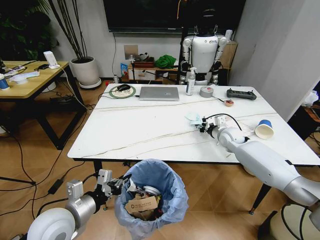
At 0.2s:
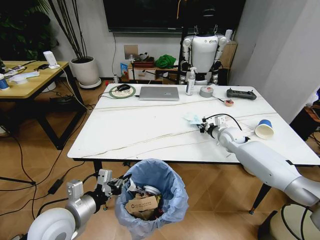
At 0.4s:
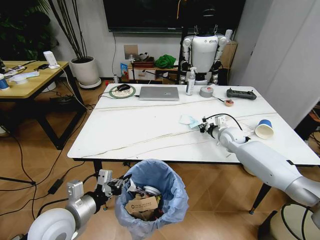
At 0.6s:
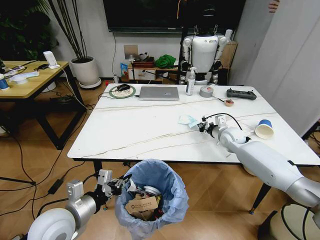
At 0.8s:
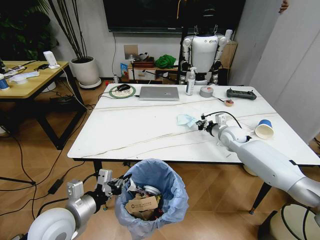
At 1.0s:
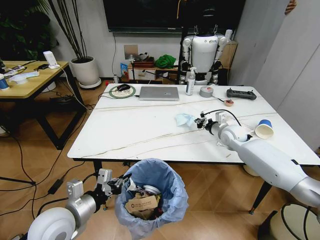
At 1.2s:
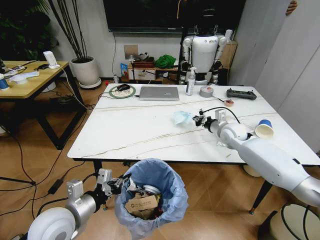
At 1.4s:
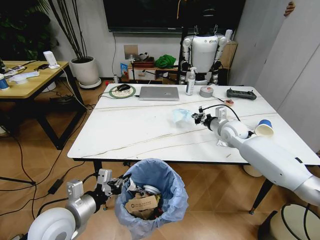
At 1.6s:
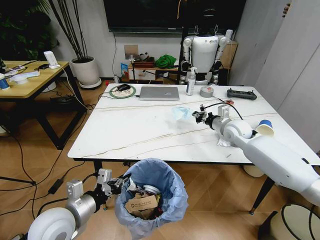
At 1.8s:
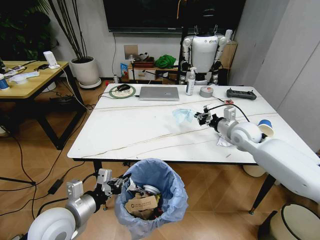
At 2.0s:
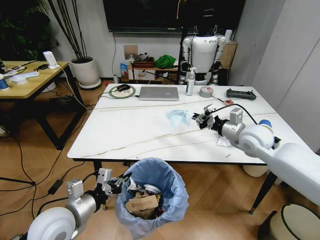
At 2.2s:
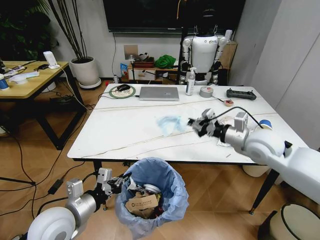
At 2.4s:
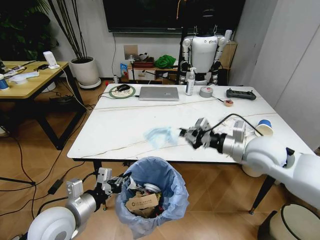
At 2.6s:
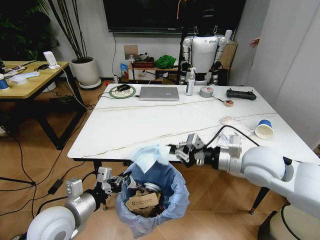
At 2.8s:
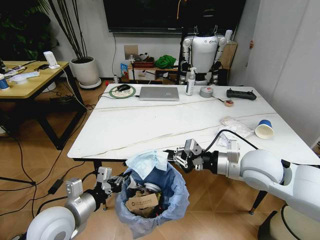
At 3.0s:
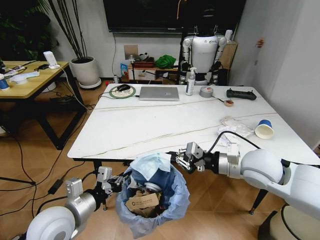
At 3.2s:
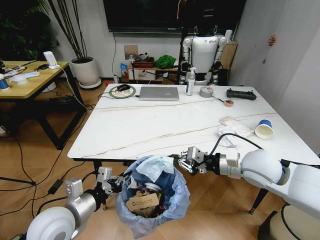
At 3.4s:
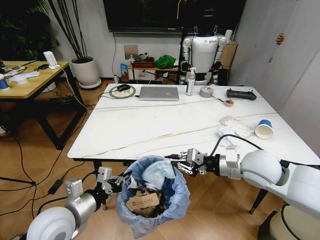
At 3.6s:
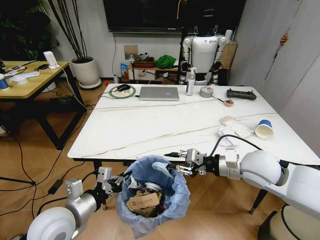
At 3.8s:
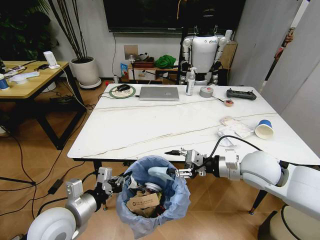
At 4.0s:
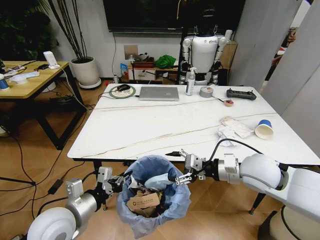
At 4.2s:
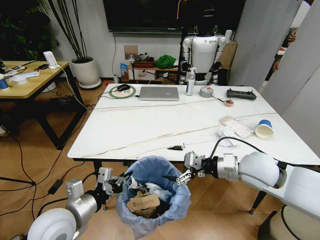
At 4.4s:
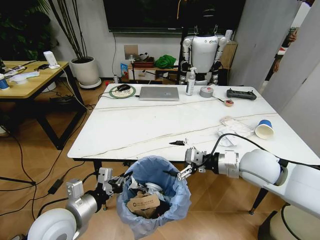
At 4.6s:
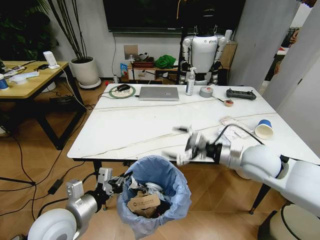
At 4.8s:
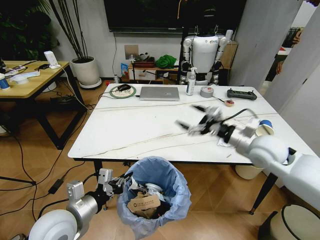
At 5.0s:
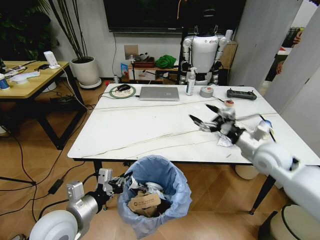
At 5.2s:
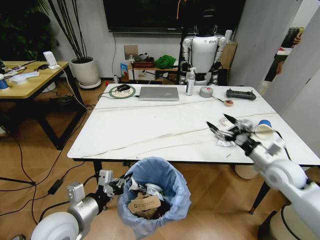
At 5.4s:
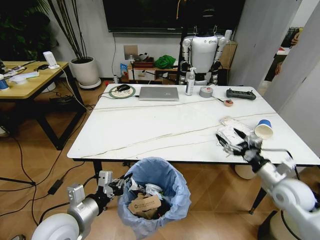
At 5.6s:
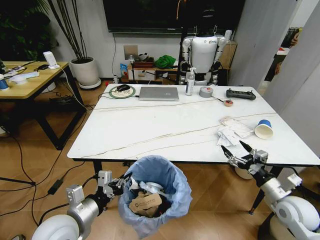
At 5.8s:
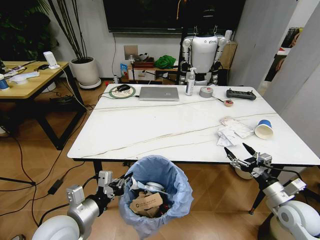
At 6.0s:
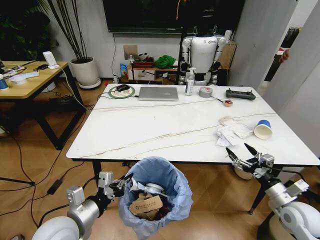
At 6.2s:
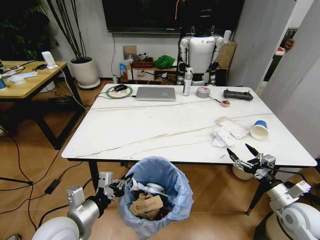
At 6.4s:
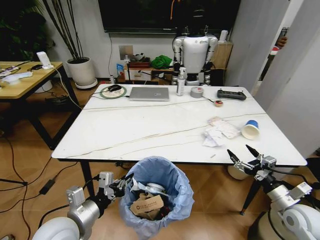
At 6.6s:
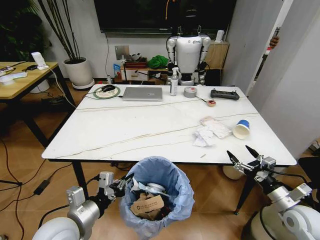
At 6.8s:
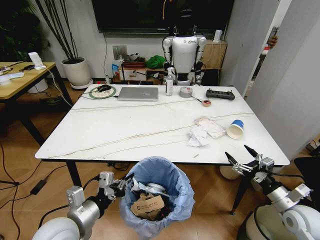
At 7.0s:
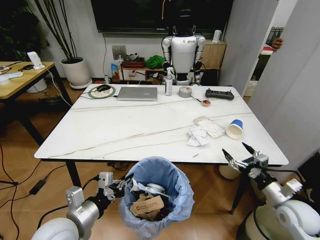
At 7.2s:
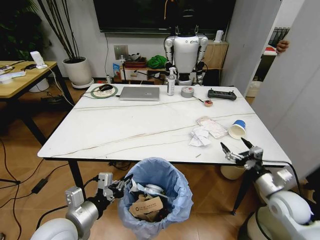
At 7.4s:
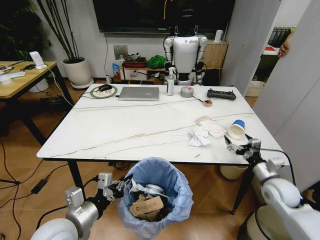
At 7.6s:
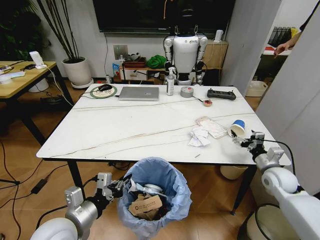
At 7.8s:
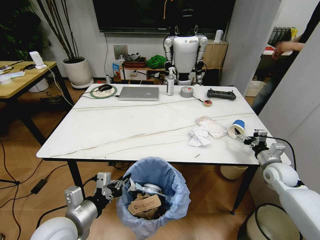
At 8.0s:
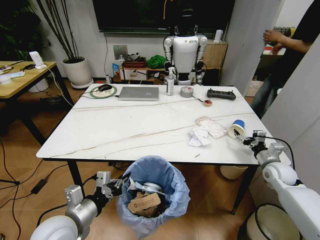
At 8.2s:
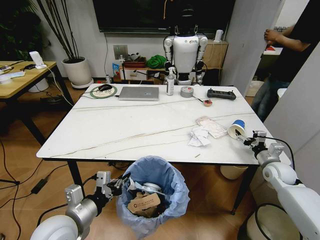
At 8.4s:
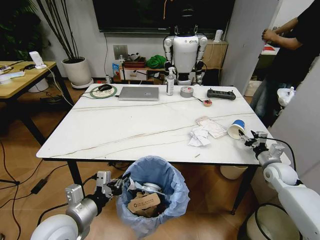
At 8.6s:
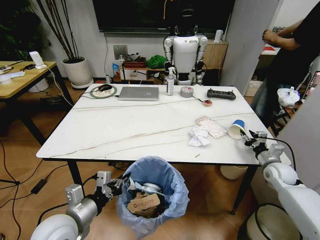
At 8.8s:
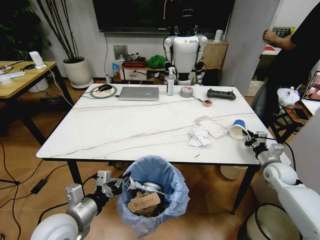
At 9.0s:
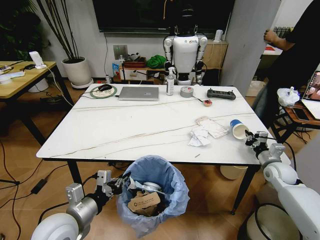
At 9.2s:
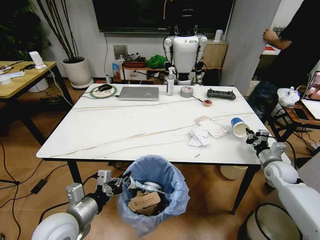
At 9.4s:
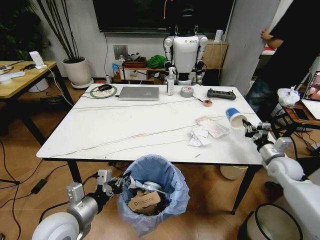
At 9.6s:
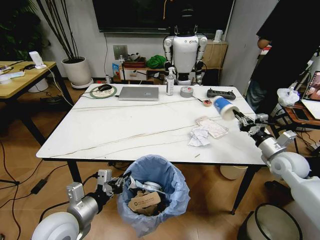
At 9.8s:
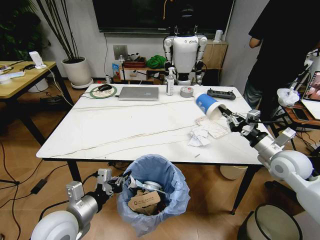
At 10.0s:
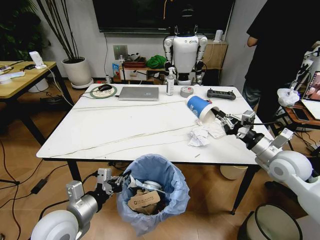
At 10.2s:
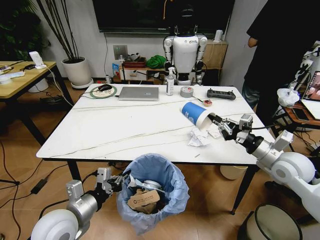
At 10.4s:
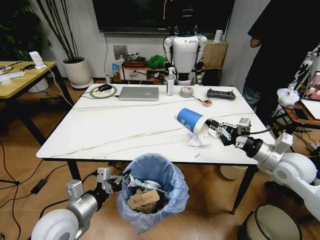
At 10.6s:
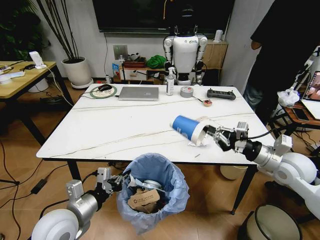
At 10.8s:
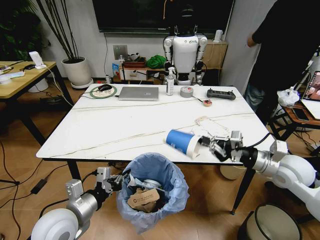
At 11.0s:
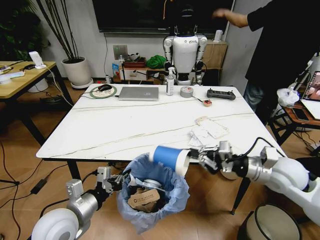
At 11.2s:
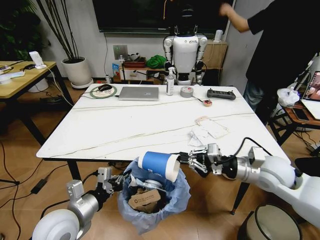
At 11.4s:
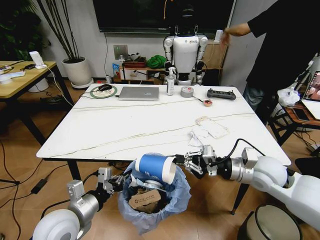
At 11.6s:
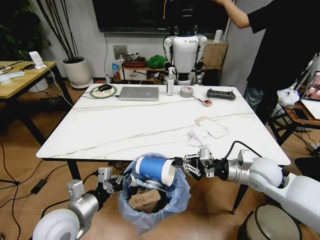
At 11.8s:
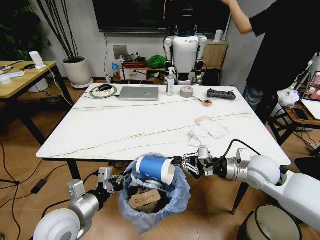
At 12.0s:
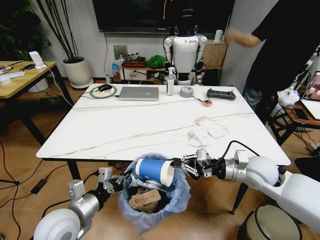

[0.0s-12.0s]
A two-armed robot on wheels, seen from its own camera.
Task of the whole recording: Pick up the trash bin and place the trash from the table into it.
0.0s to 1.6s: The right gripper moves upward, approximately 5 cm.
1.6s to 3.0s: The right gripper goes some 20 cm backward.
3.0s to 4.4s: The right gripper opens.
4.4s to 6.0s: The right gripper shifts roughly 25 cm to the right, downward and backward.
6.0s to 7.6s: The right gripper heads forward, covering some 10 cm.
7.6s to 9.0s: The right gripper moves roughly 5 cm, and closes up.
9.0s to 10.4s: The right gripper travels upward, to the left and backward by about 15 cm.
10.4s to 12.0s: The right gripper travels to the left by some 10 cm.

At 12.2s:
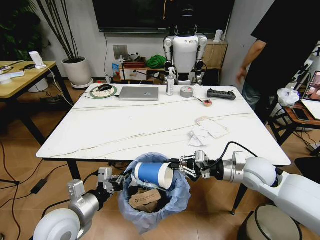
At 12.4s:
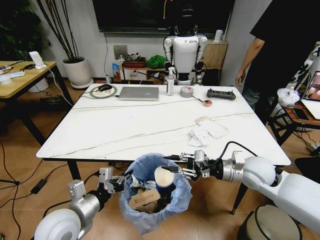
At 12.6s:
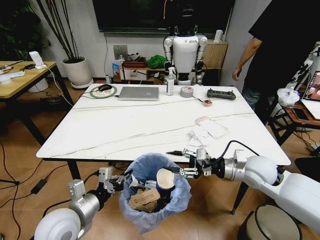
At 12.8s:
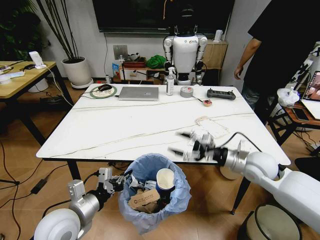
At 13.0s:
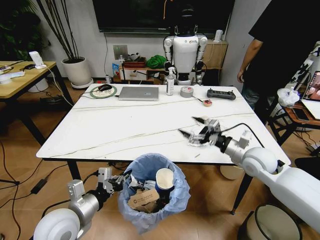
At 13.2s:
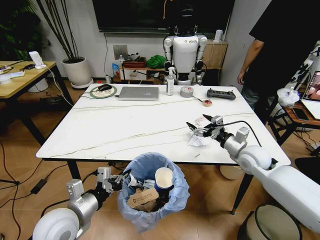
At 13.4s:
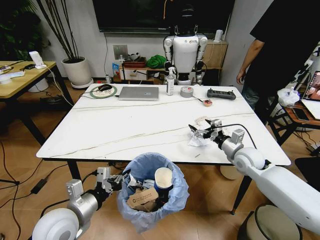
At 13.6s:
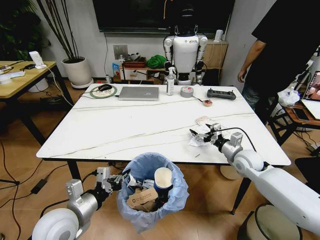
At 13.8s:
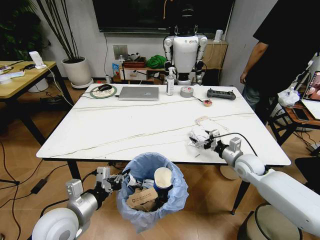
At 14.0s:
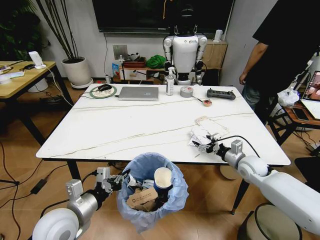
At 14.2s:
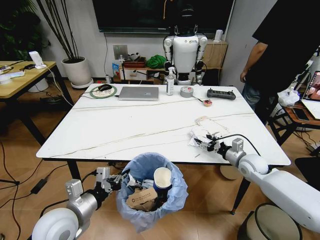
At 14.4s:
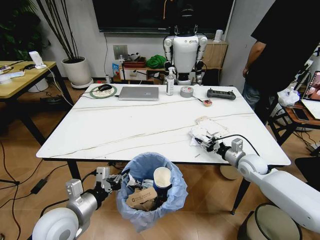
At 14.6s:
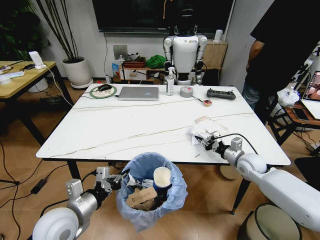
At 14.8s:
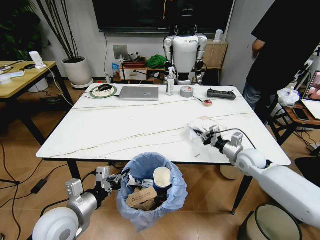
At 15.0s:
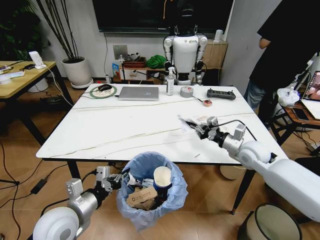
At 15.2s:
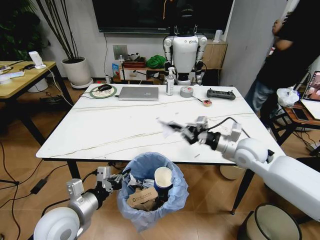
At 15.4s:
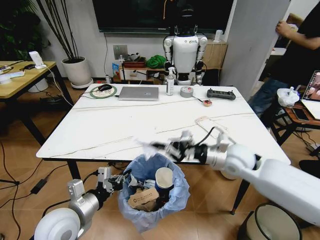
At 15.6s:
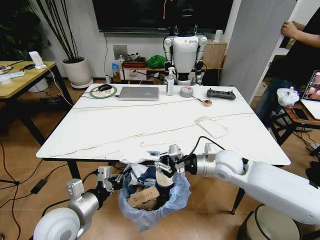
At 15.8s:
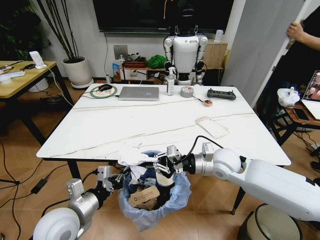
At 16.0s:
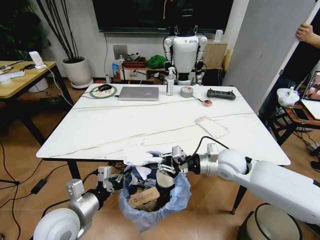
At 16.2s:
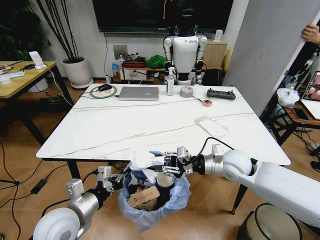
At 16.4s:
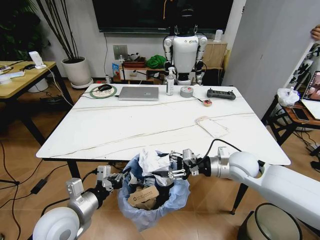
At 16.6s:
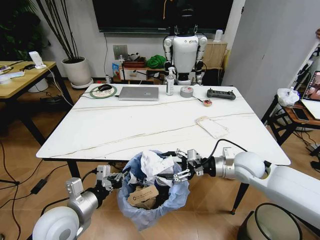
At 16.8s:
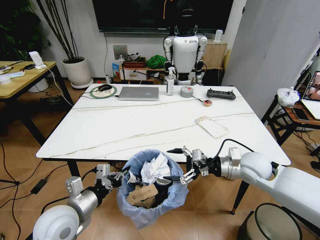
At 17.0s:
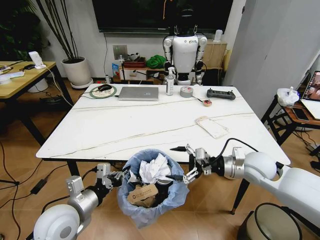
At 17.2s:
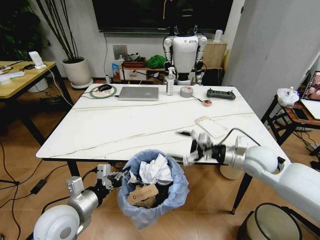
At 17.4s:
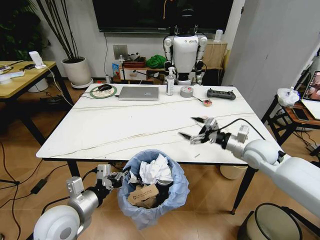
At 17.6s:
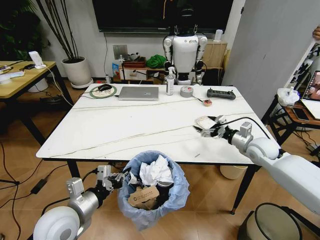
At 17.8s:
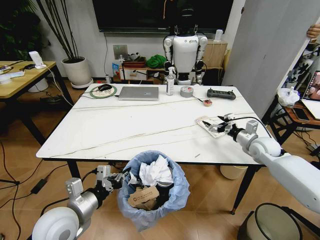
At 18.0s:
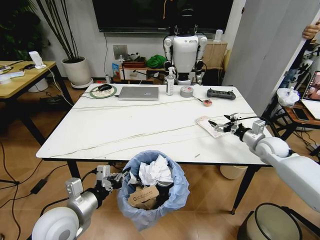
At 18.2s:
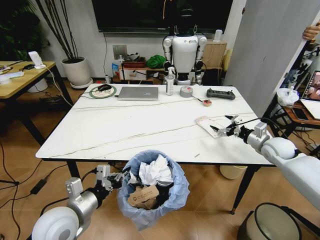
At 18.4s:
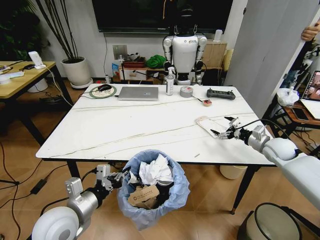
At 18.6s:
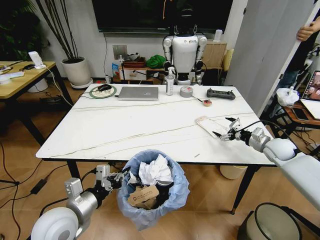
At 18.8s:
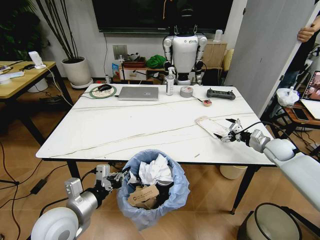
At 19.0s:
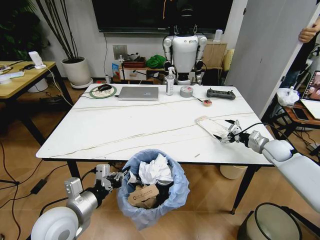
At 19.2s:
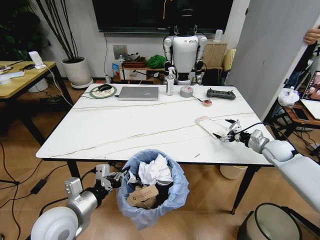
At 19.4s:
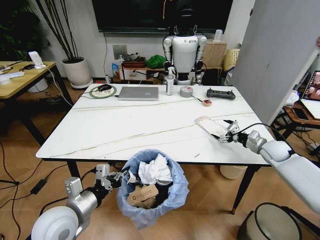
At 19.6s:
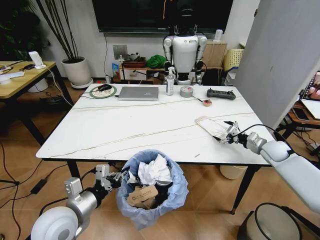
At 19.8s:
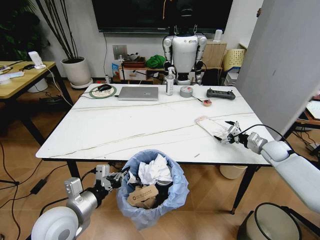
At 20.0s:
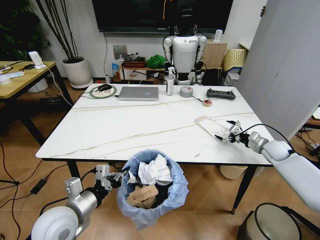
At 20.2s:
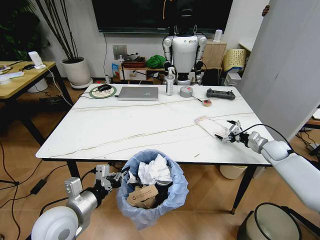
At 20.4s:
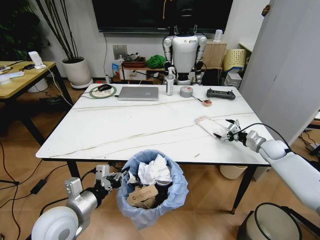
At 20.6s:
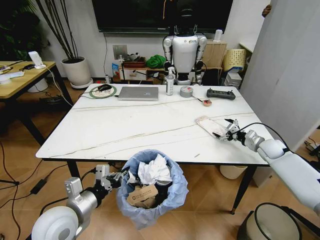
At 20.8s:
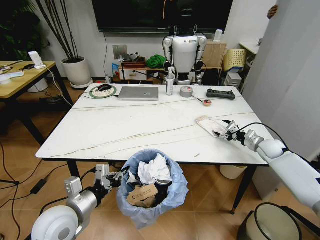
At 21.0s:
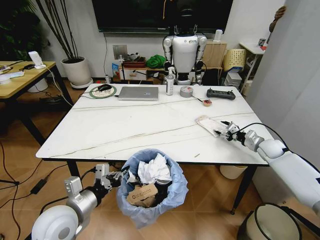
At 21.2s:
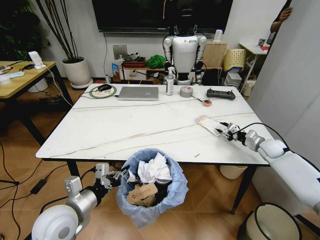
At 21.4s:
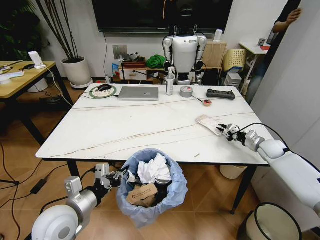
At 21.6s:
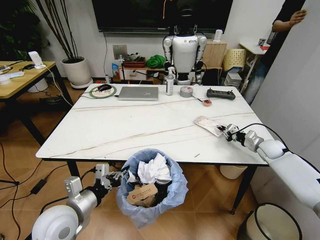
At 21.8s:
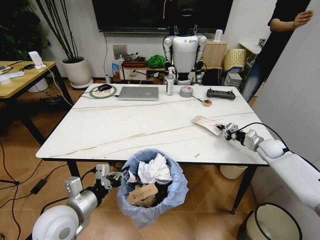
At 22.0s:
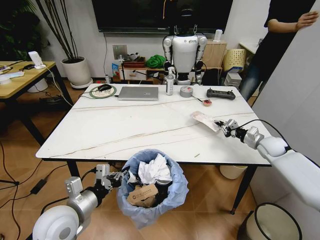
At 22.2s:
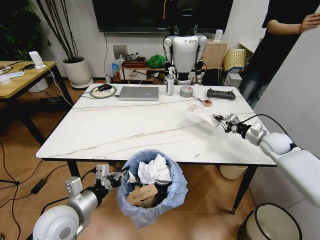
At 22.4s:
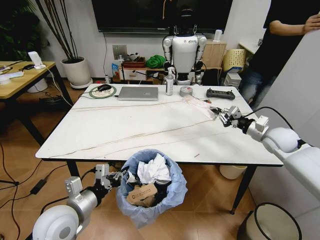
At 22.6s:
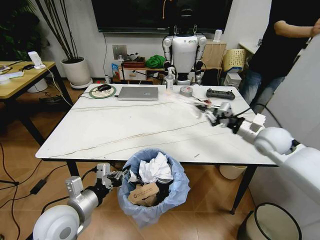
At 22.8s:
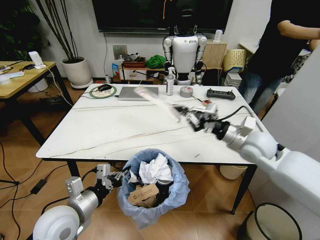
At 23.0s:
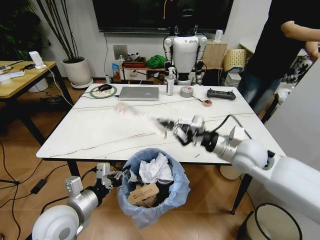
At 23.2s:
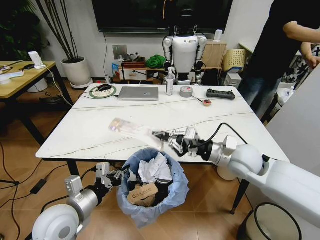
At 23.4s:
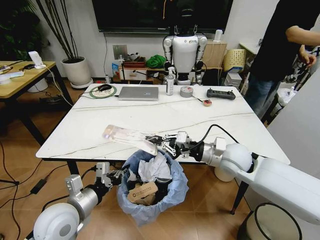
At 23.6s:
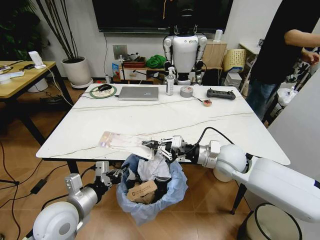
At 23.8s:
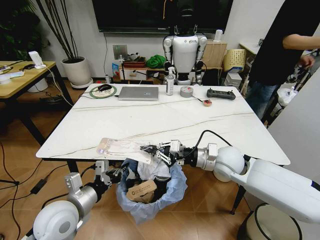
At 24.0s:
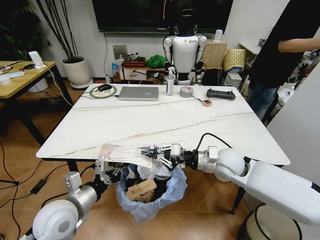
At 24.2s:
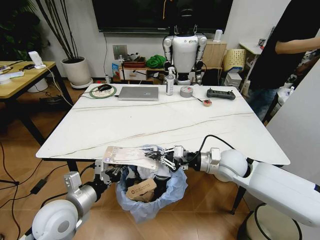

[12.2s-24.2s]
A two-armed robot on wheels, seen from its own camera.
Task of the whole recording: Pick up the trash bin and place the trash from the table into it.
12.2s to 13.8s: The right gripper is displaced downward and forward by roughly 10 cm, and opens.
13.8s to 15.2s: The right gripper shifts roughly 10 cm upward, and closes up.
15.2s to 16.6s: The right gripper goes to the left and returns, some 10 cm each way, and opens its fingers.
16.6s to 18.2s: The right gripper shifts roughly 20 cm to the right and forward.
18.2s to 19.8s: The right gripper ends up roughly 5 cm from where it was.
19.8s to 21.2s: The right gripper closes up.
21.2s to 22.6s: The right gripper shifts approximately 20 cm upward, to the left and backward, and closes up.
22.6s to 24.2s: The right gripper moves to the left and downward, approximately 15 cm.
